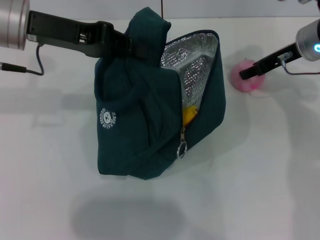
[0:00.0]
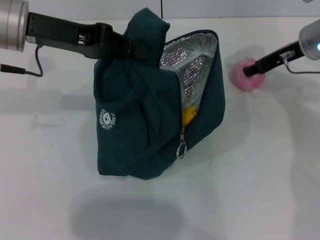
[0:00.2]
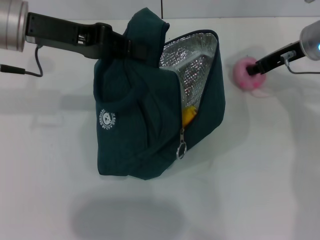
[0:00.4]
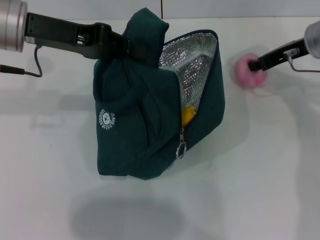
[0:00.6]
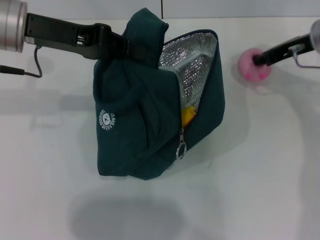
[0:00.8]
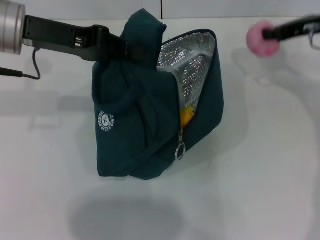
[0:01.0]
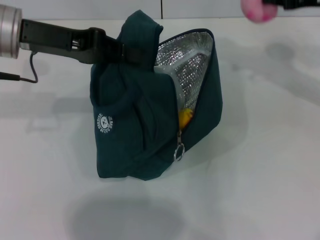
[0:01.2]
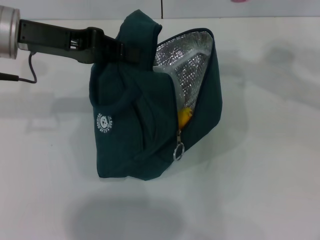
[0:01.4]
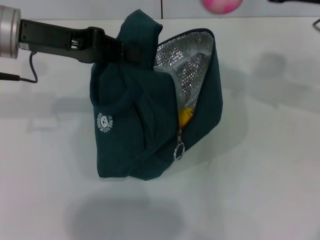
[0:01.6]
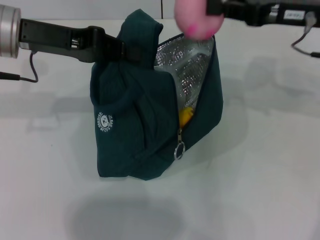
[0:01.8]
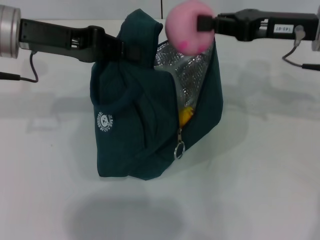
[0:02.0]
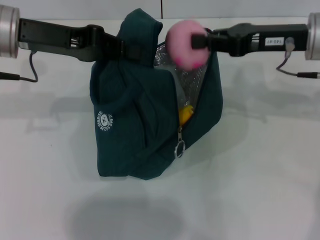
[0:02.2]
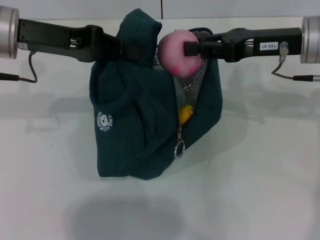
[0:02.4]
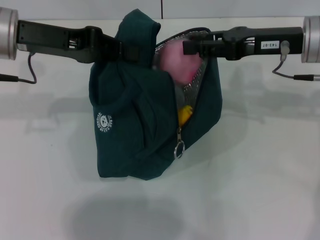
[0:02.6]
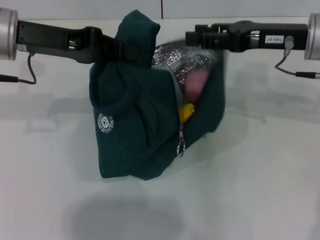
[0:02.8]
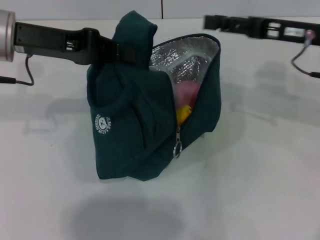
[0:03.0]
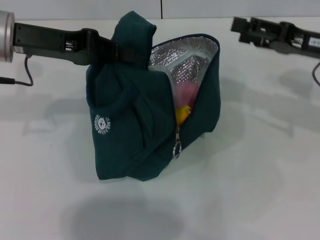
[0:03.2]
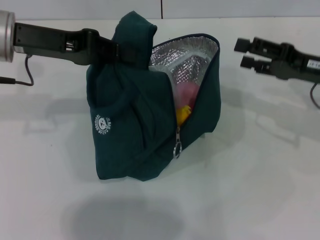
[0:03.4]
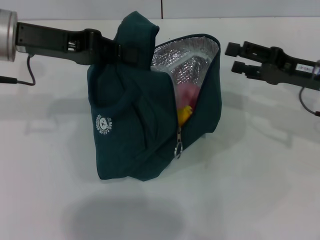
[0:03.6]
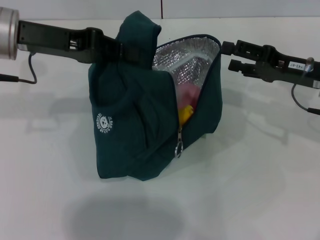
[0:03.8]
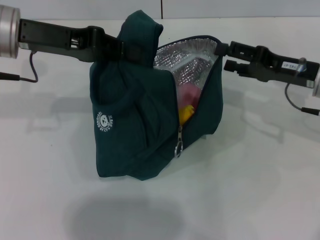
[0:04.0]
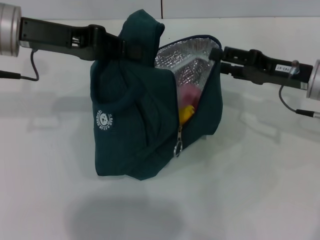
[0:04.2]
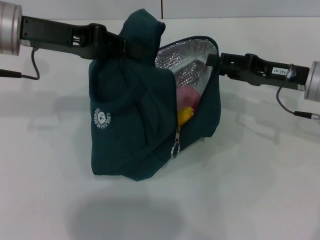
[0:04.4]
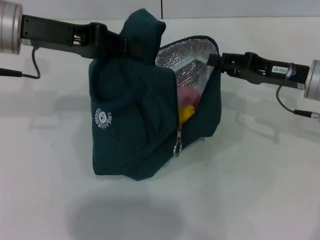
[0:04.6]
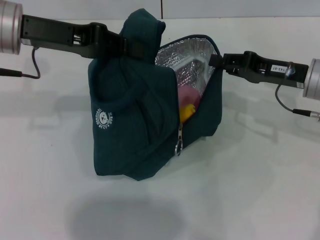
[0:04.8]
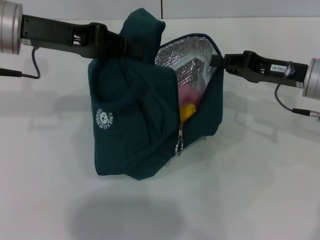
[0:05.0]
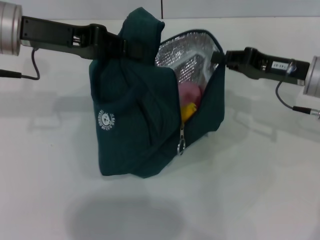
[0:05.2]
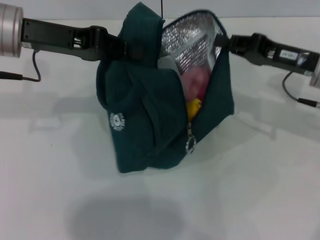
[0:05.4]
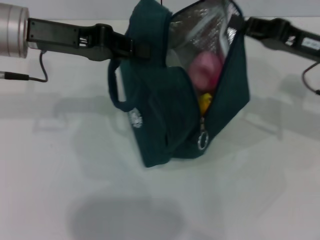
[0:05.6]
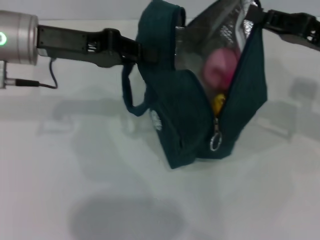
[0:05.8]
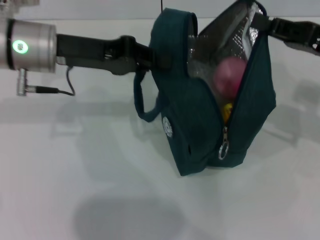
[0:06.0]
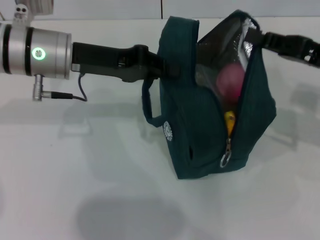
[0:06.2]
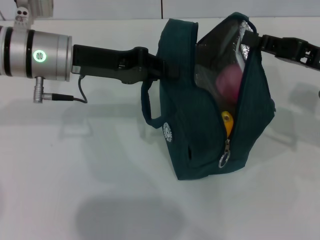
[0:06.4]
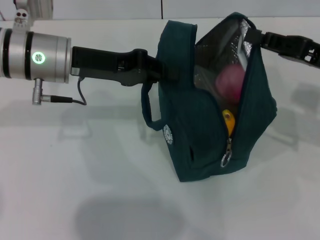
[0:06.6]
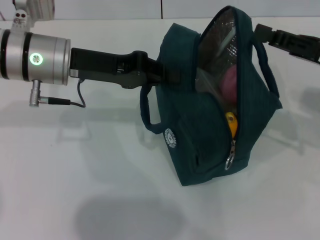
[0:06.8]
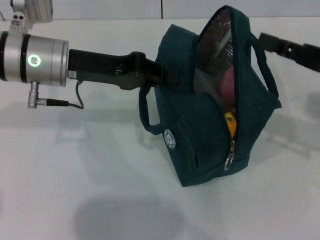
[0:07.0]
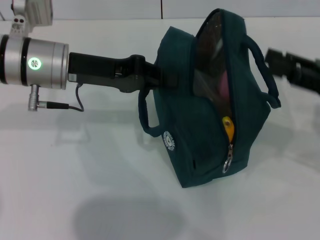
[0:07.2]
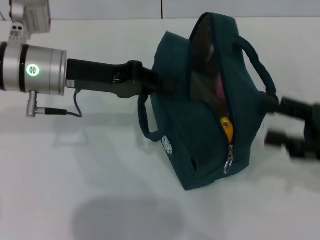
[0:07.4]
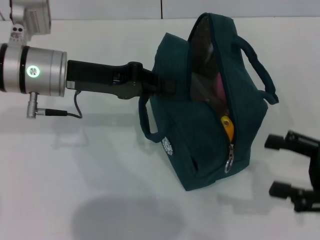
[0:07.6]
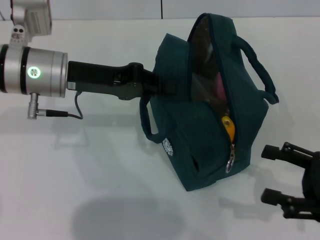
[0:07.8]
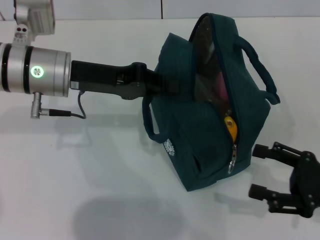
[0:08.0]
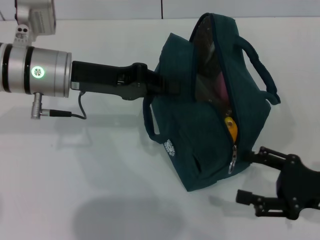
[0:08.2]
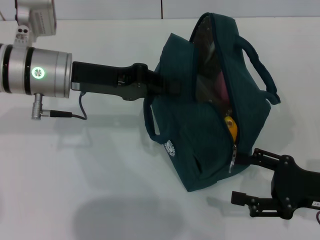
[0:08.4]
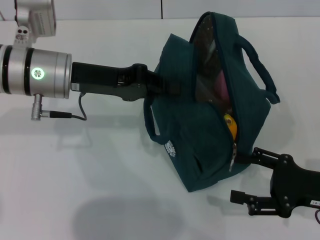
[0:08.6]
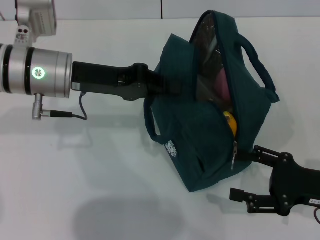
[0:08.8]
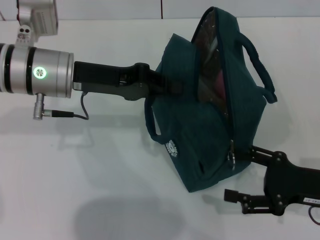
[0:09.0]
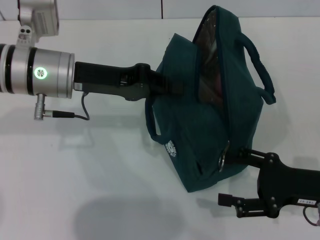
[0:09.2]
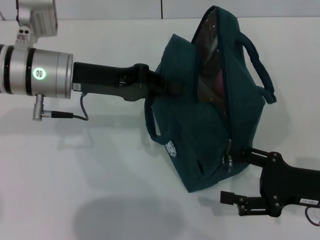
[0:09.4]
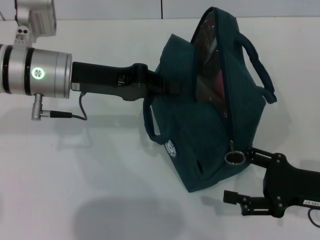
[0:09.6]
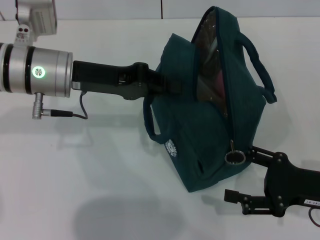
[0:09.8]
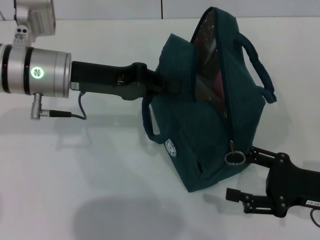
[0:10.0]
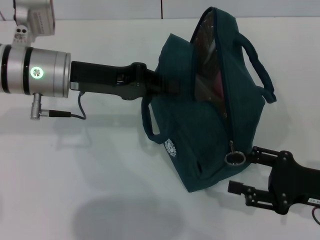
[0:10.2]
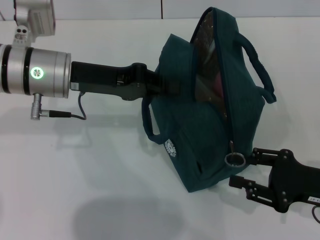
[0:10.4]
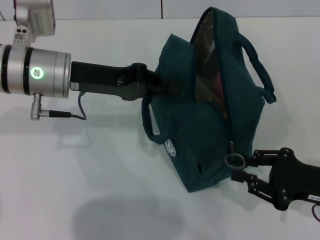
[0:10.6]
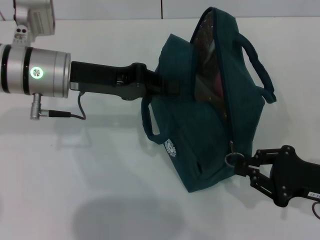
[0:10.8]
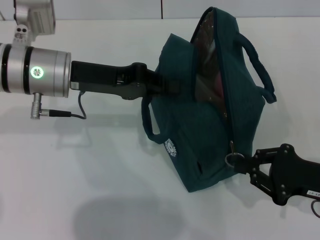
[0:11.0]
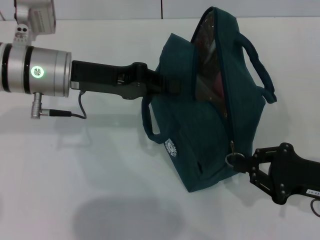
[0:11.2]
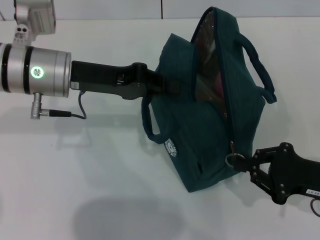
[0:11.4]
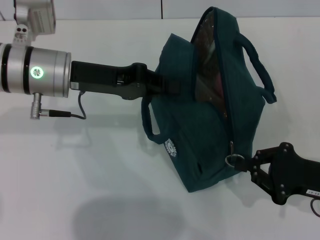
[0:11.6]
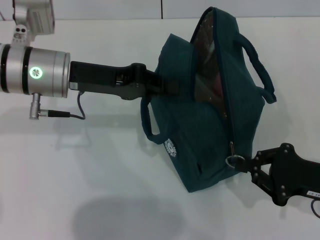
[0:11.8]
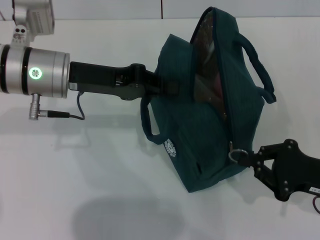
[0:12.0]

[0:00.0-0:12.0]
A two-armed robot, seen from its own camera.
Step, 0:03.0 to 0:07.0: Hold the lunch bag with your right hand.
0:00.0 to 0:01.6: The right gripper heads upward and backward, covering about 10 cm, and closes up.
0:01.6 to 0:03.0: The right gripper changes place by about 5 cm, and opens its fingers.
0:03.0 to 0:04.4: The right gripper moves downward, roughly 5 cm.
0:04.4 to 0:06.0: The right gripper ends up some 5 cm from where it was, and closes.
0:06.0 to 0:07.6: The right gripper shifts approximately 15 cm backward and downward, and opens up.
0:07.6 to 0:09.0: The right gripper ends up some 5 cm from where it was.
0:09.0 to 0:10.4: Neither gripper changes place.
0:10.4 to 0:12.0: The right gripper closes.

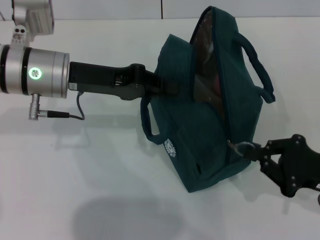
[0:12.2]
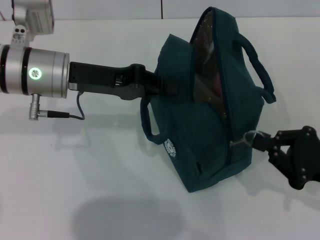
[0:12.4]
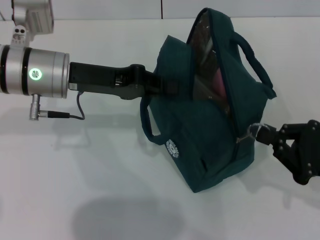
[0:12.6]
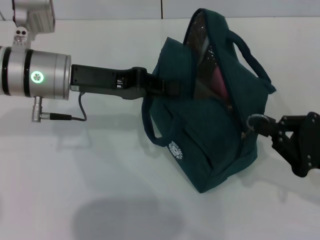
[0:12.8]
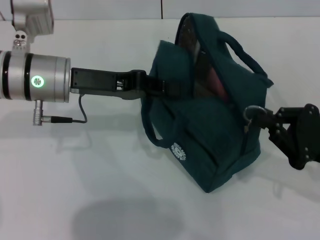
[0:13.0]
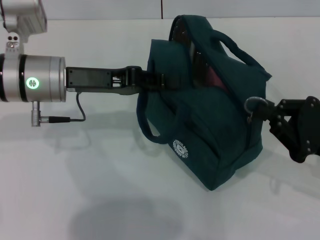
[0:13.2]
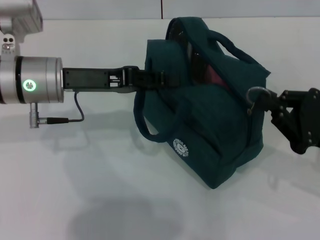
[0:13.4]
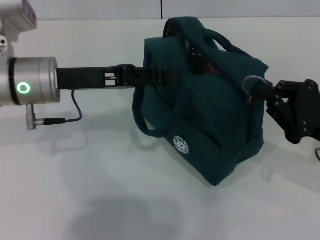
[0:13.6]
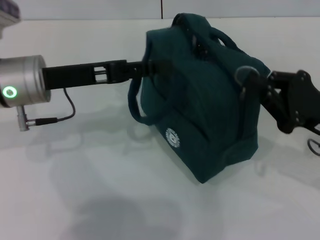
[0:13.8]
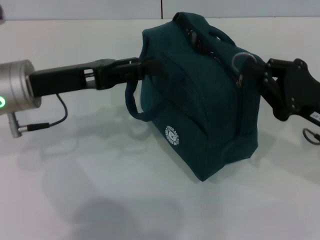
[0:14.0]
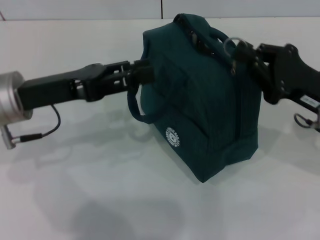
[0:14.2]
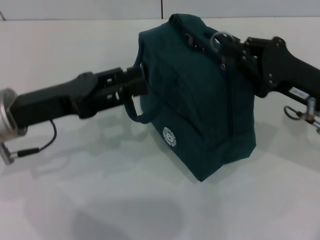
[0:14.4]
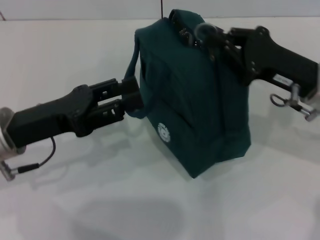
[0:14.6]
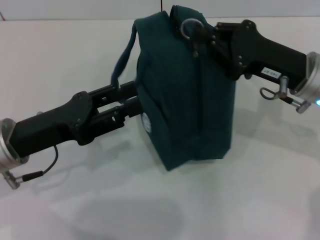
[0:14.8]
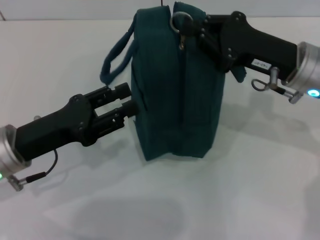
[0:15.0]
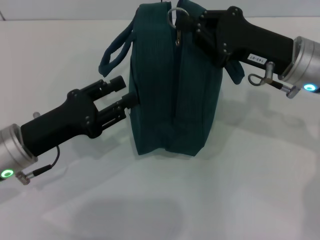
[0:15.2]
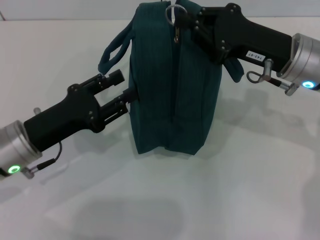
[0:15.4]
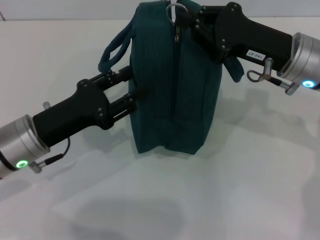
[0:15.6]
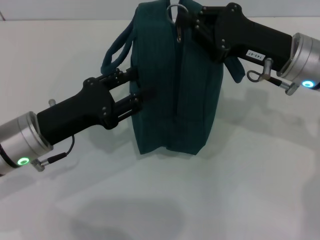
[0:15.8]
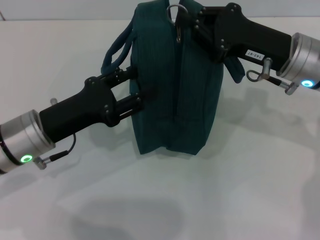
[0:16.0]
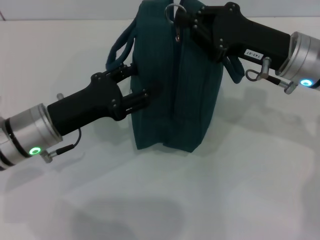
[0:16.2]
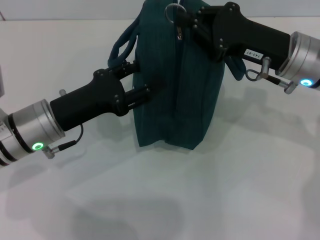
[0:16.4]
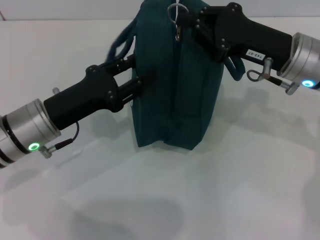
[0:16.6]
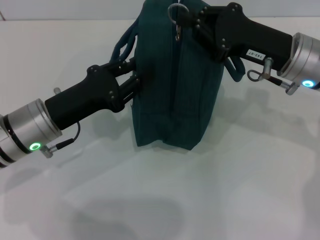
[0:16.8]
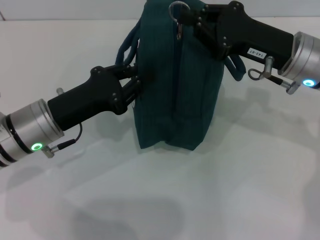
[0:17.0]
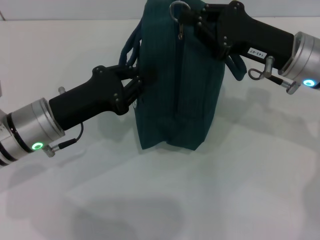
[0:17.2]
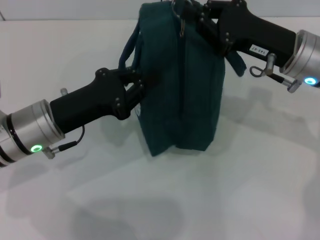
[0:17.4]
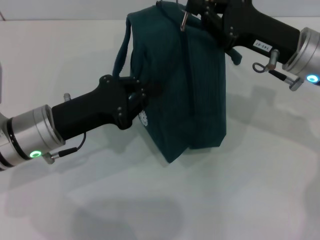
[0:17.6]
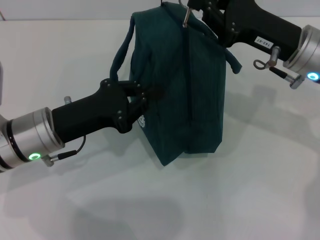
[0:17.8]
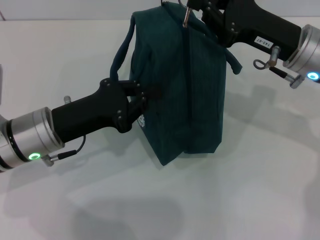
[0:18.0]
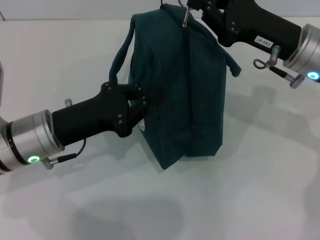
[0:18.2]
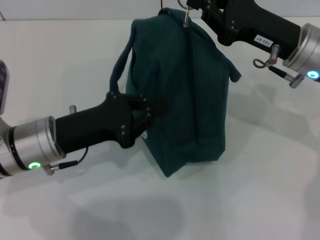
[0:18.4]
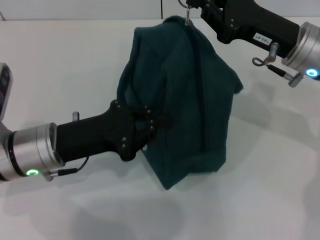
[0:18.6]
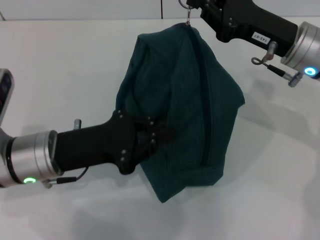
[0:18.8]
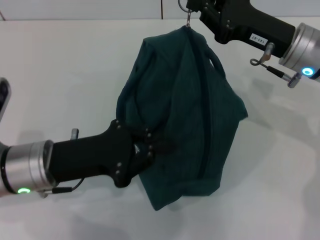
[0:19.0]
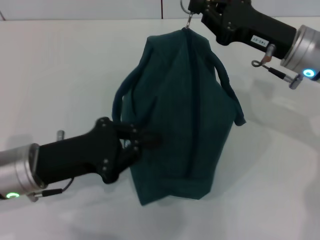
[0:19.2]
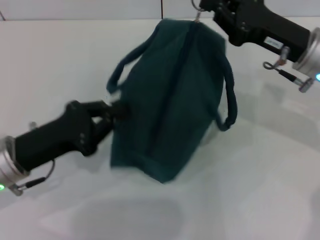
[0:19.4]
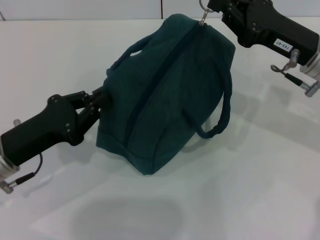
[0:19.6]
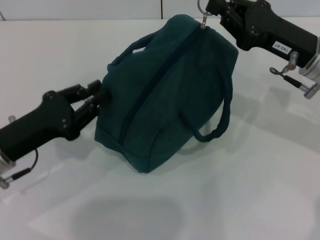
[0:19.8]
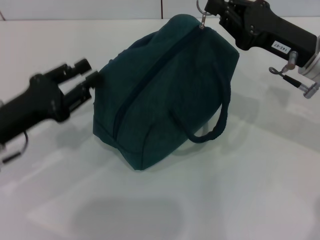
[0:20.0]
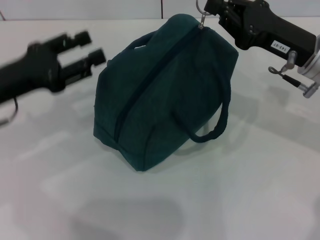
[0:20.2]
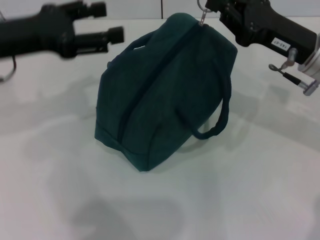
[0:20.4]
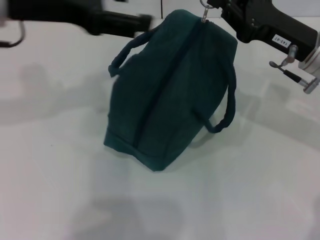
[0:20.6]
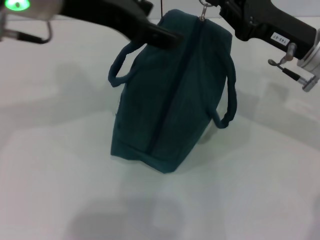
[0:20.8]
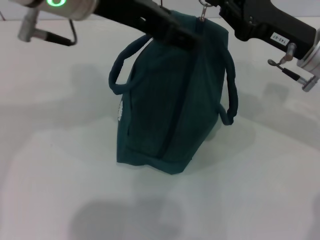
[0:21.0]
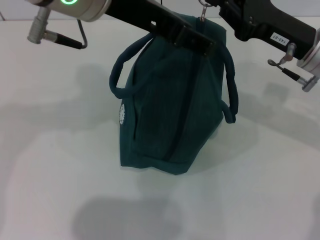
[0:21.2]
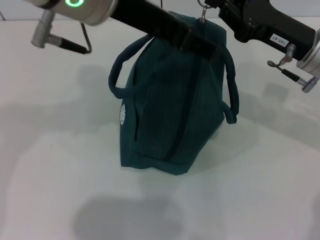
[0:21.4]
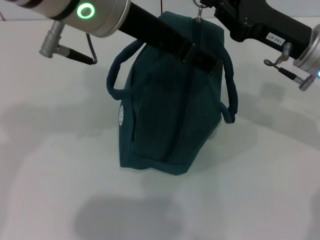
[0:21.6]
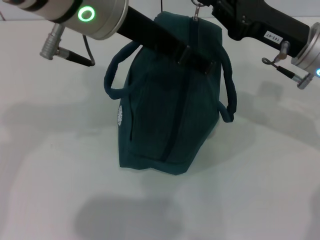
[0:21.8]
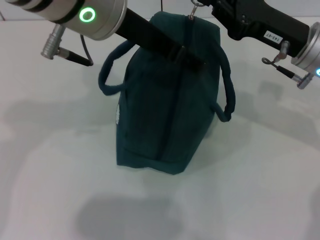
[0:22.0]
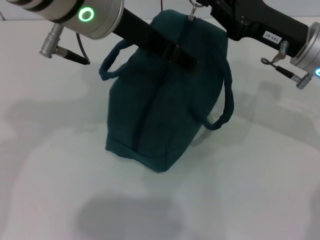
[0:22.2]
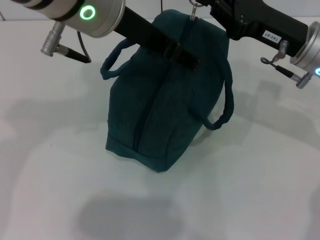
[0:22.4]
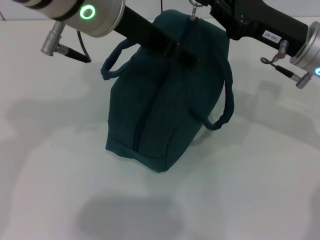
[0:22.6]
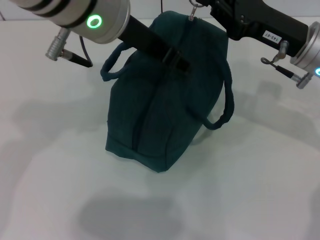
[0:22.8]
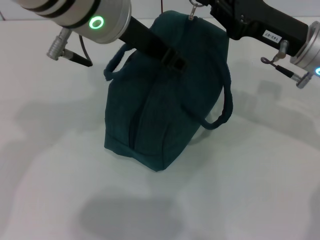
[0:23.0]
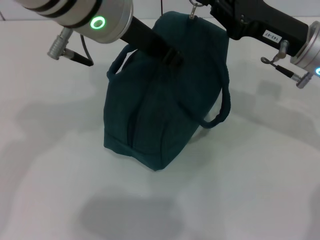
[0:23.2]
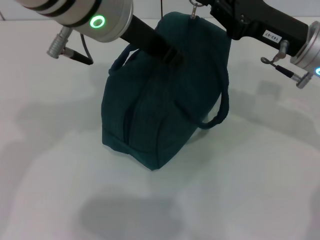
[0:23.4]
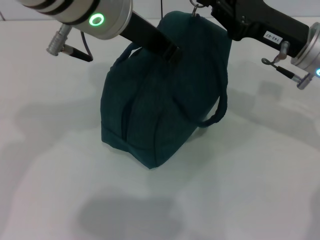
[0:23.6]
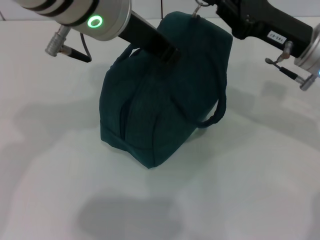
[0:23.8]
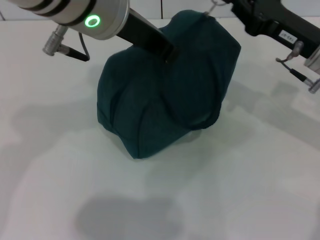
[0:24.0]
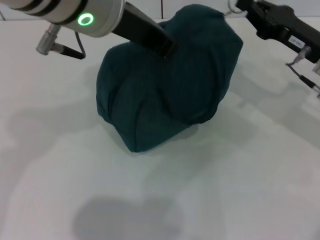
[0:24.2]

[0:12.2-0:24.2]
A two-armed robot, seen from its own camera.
0:12.2 to 0:13.8: The left gripper opens its fingers, while the right gripper ends up approximately 5 cm from where it was.
0:13.8 to 0:15.2: The right gripper travels forward, to the left and upward by about 10 cm; the left gripper is displaced downward and backward by approximately 10 cm.
0:15.2 to 0:16.6: The grippers stay close to where they were, moving slightly.
0:16.6 to 0:18.2: The left gripper closes.
0:18.2 to 0:19.8: The left gripper is displaced to the left by about 5 cm.
0:19.8 to 0:21.2: The left gripper moves upward and to the right, about 30 cm, and opens its fingers.
0:21.2 to 0:22.6: The grippers make only small movements.
0:22.6 to 0:24.2: The right gripper changes place by roughly 5 cm; the left gripper closes up.
